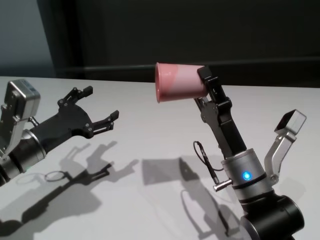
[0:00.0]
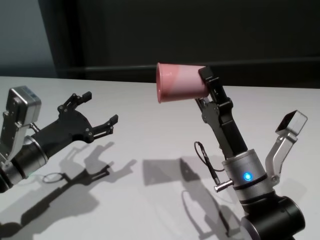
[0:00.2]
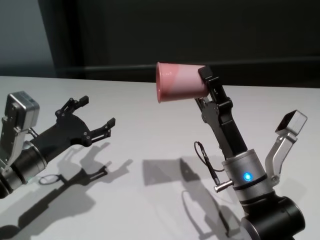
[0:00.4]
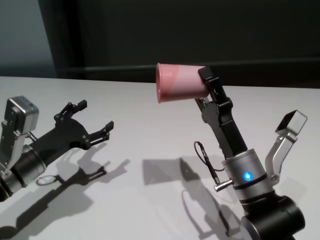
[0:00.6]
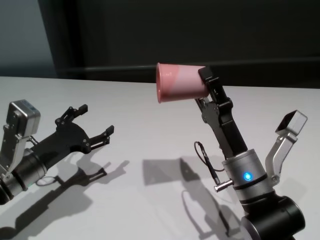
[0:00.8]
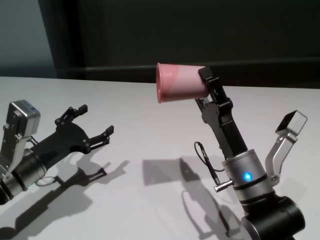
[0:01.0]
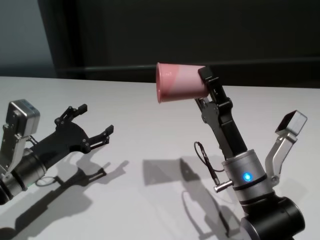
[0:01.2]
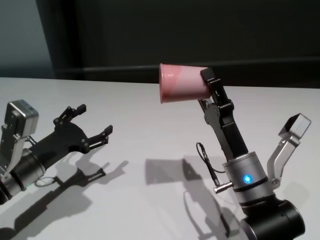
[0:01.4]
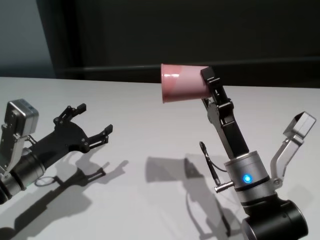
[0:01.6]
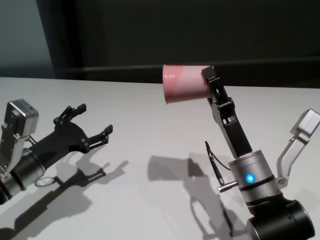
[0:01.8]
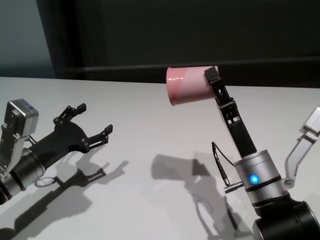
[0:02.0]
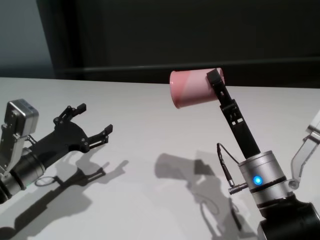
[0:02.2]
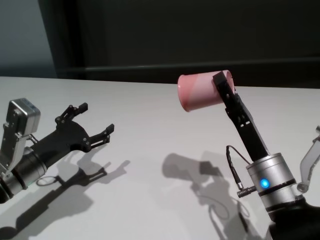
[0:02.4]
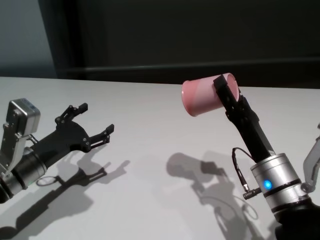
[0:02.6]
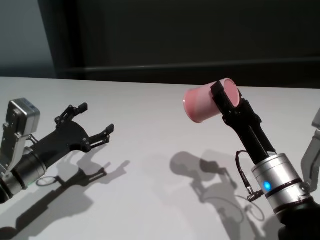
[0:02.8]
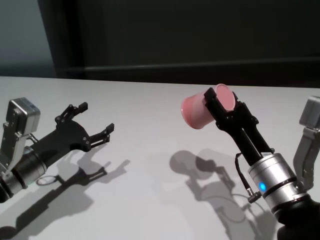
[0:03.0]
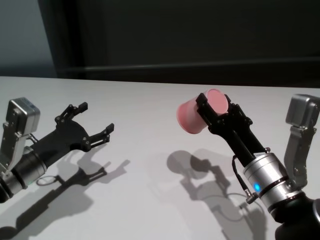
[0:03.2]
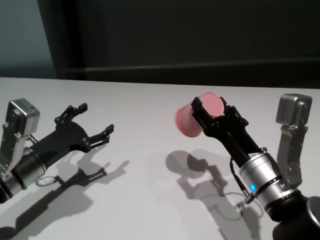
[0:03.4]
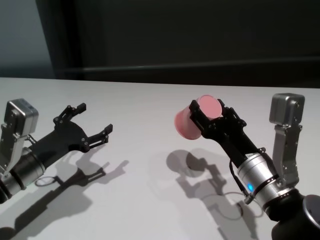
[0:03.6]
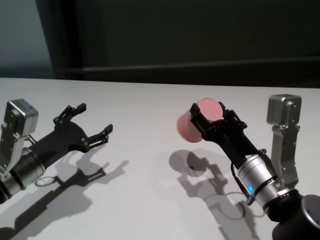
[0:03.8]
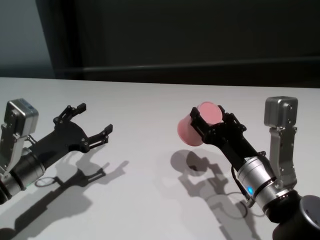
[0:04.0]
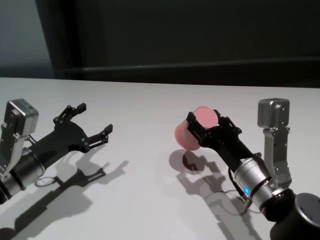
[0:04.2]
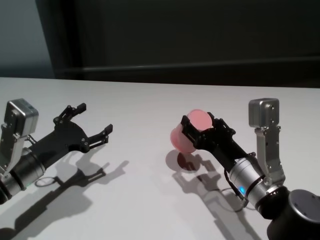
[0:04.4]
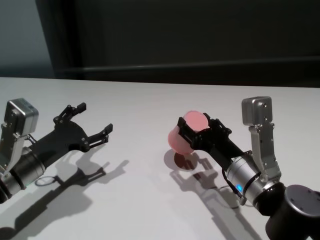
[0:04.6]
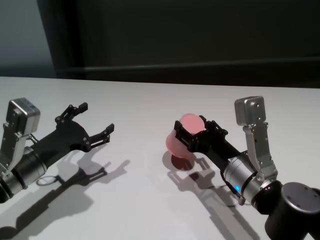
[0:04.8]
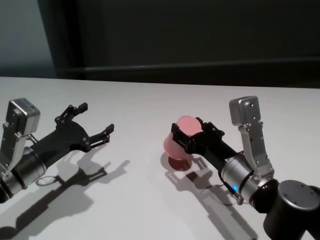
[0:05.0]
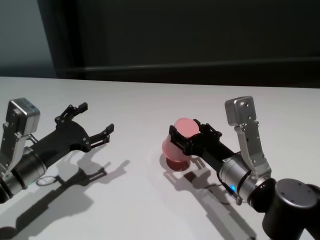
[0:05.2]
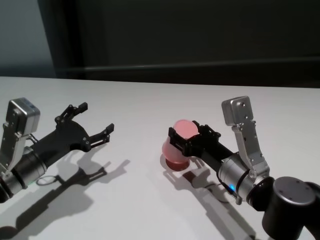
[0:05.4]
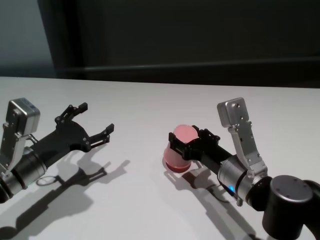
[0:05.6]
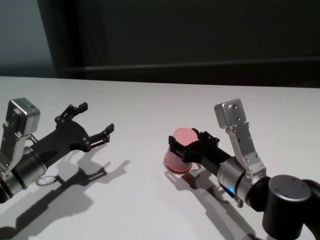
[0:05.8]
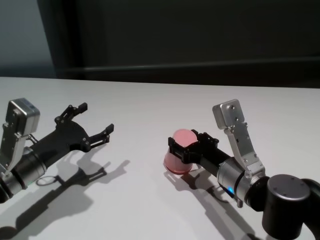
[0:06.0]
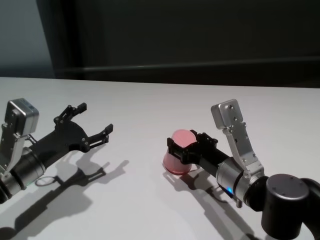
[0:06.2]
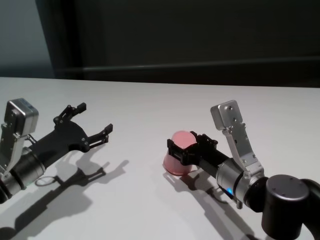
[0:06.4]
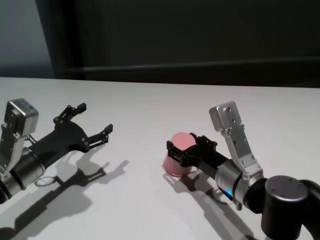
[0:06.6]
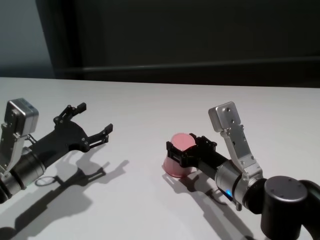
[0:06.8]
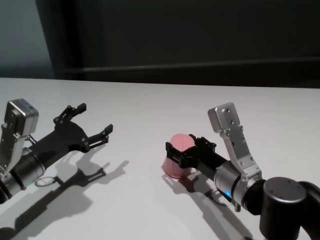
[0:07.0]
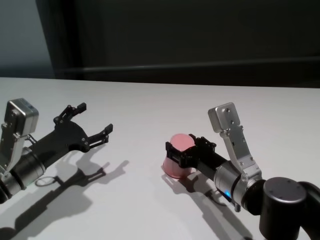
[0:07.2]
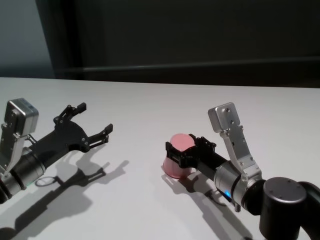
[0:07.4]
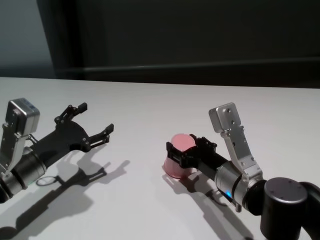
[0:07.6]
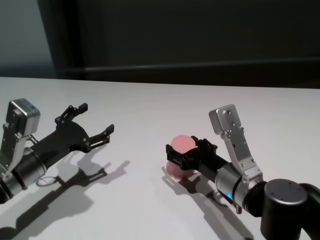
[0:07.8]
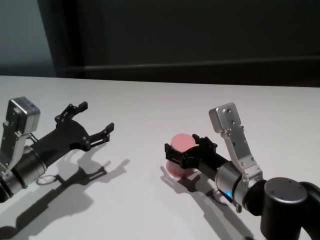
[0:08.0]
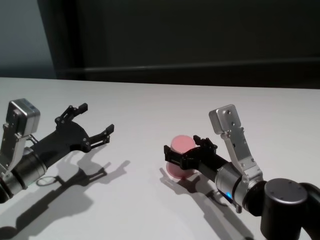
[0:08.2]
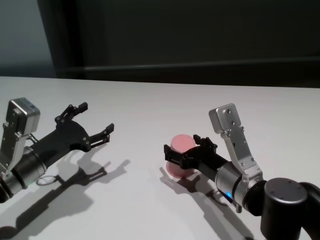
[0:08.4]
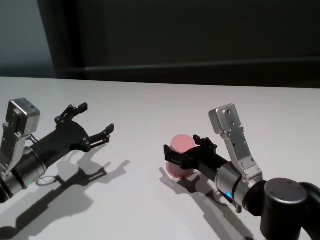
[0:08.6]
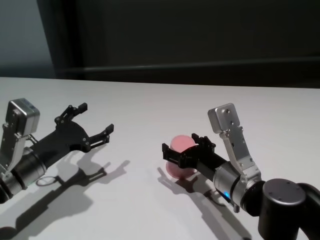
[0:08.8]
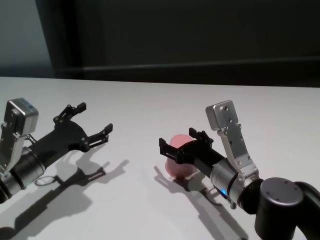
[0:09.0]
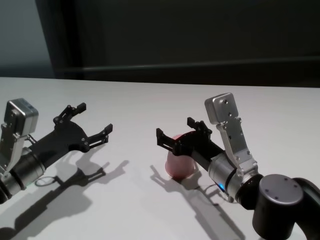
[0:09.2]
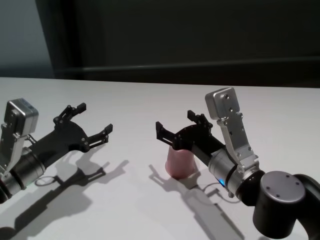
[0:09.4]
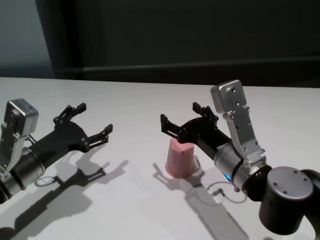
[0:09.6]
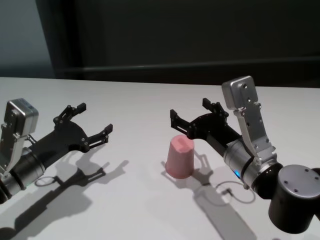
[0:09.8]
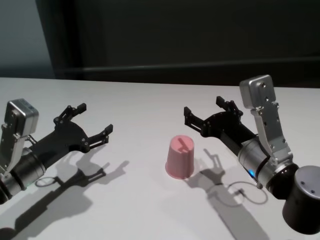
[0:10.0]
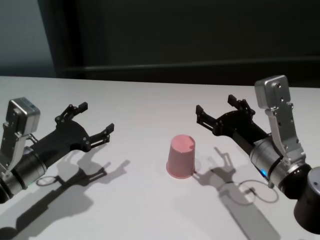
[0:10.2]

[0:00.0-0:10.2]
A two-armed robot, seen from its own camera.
Task of the whole recording: On the white table pick up the cup with one hand and transfer it to the other hand before turning it over.
Step, 0:00.0 to 0:08.8: Place the cup on the table with right gripper.

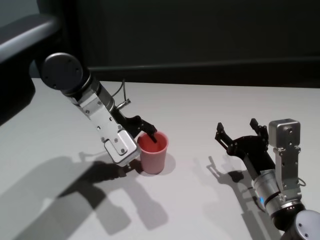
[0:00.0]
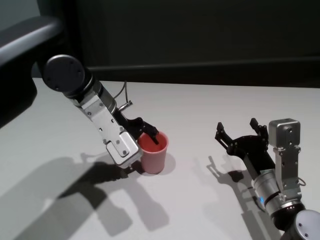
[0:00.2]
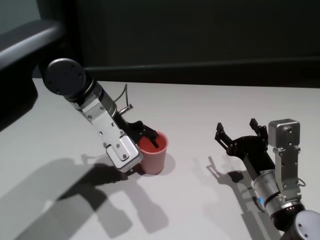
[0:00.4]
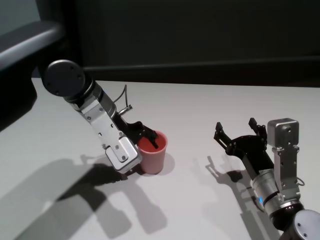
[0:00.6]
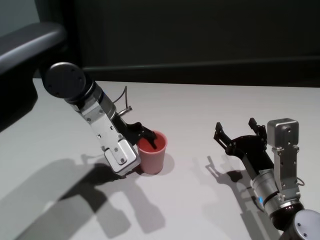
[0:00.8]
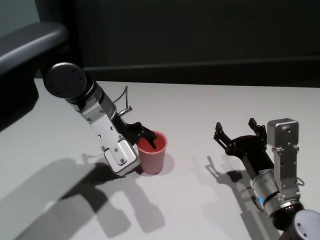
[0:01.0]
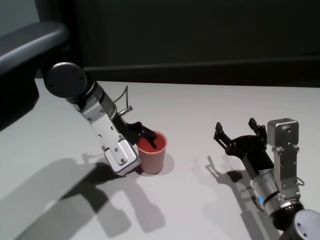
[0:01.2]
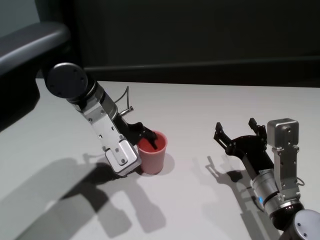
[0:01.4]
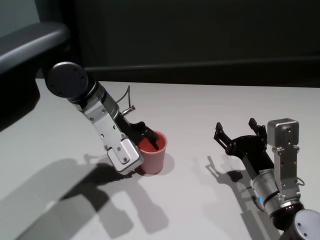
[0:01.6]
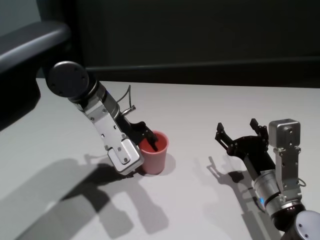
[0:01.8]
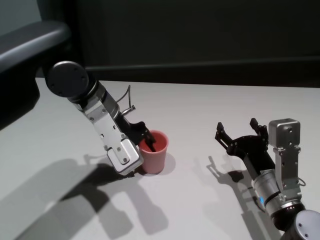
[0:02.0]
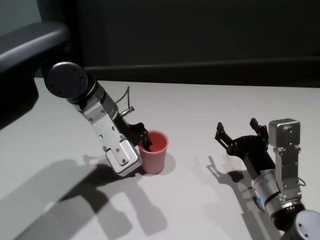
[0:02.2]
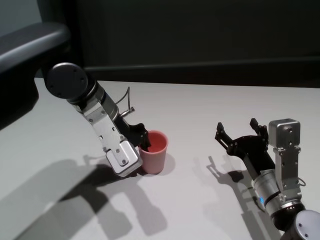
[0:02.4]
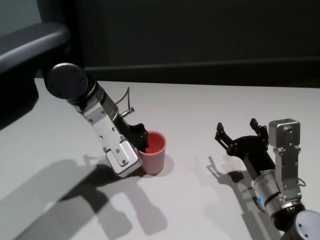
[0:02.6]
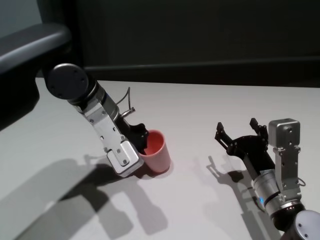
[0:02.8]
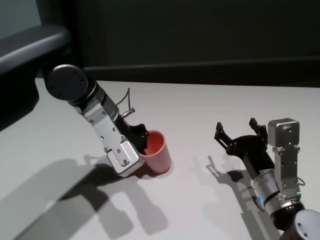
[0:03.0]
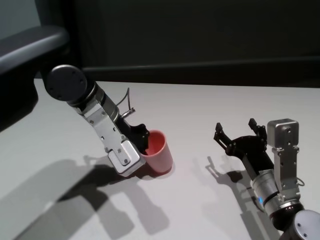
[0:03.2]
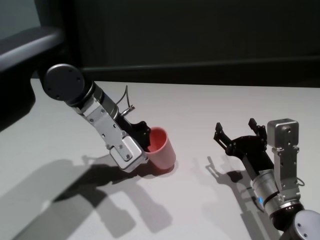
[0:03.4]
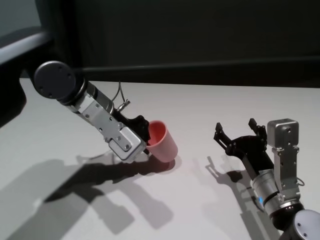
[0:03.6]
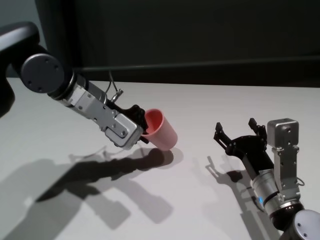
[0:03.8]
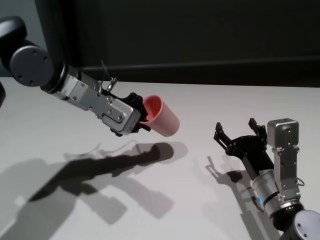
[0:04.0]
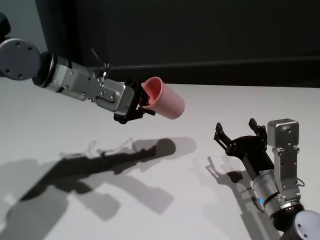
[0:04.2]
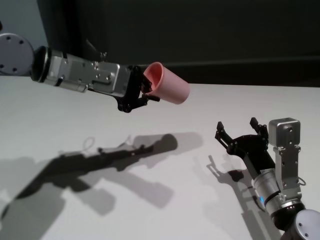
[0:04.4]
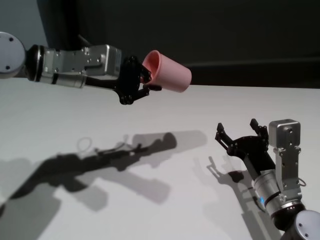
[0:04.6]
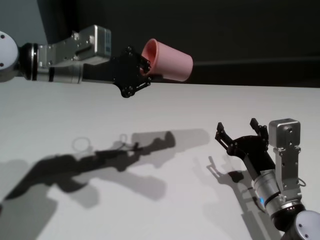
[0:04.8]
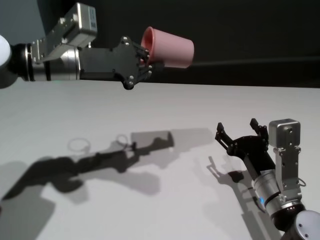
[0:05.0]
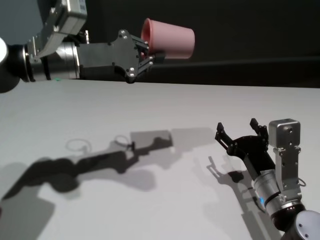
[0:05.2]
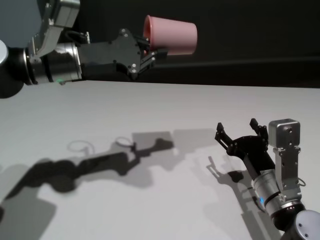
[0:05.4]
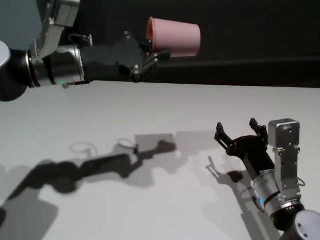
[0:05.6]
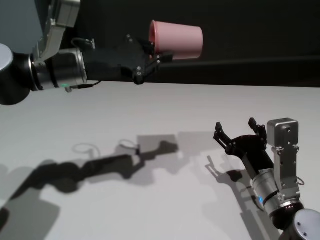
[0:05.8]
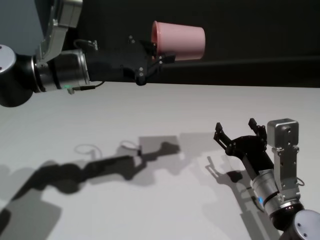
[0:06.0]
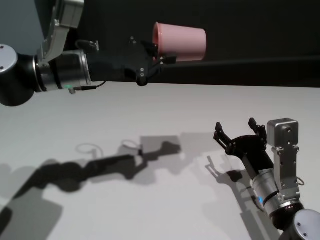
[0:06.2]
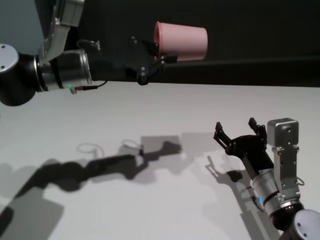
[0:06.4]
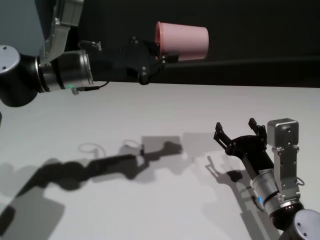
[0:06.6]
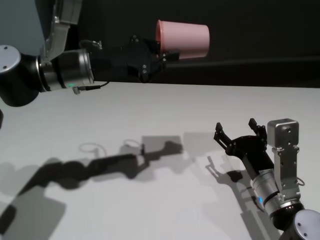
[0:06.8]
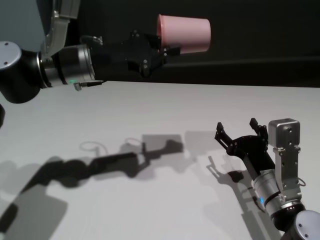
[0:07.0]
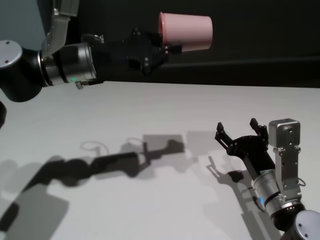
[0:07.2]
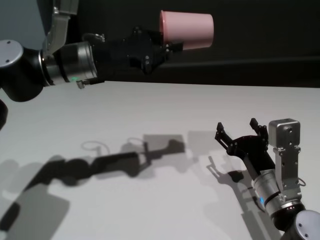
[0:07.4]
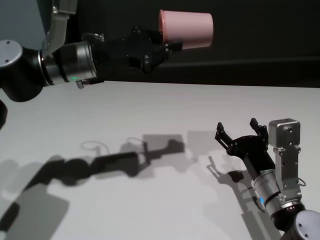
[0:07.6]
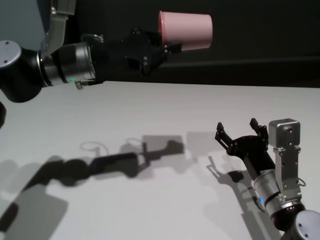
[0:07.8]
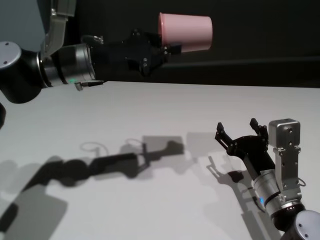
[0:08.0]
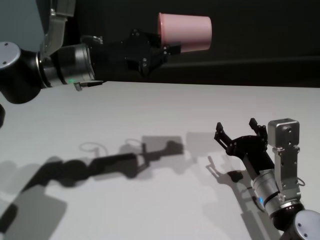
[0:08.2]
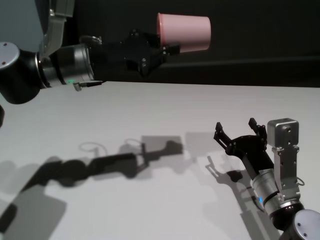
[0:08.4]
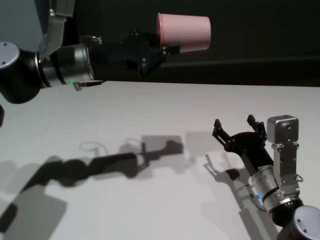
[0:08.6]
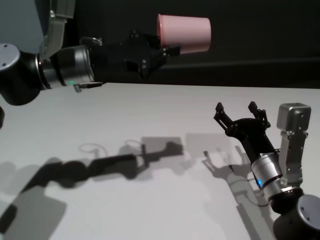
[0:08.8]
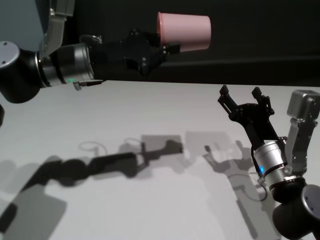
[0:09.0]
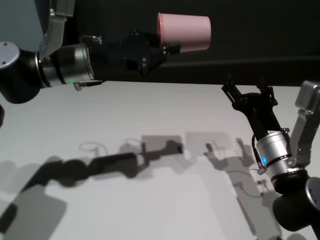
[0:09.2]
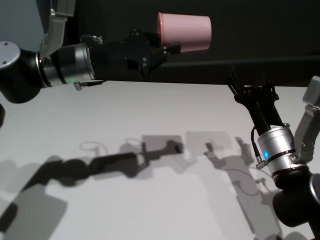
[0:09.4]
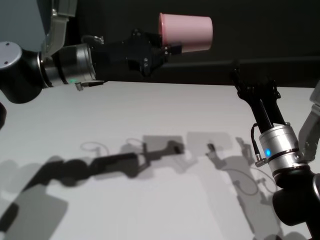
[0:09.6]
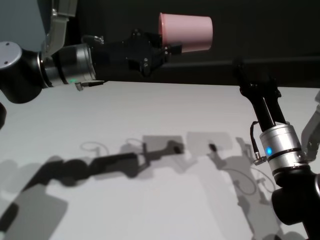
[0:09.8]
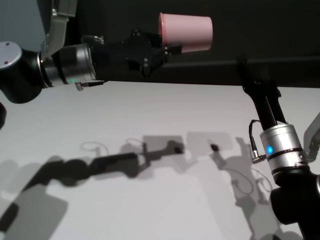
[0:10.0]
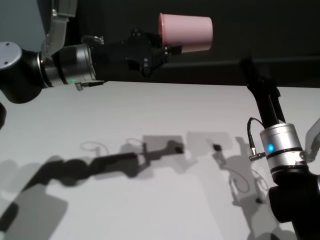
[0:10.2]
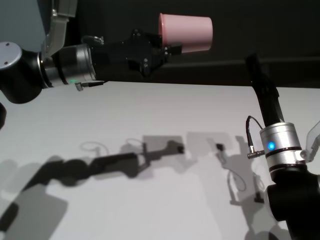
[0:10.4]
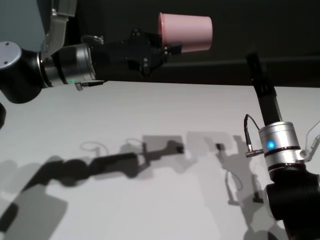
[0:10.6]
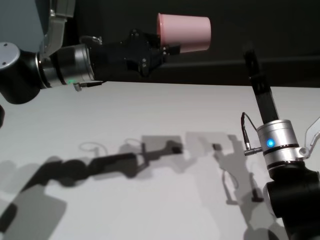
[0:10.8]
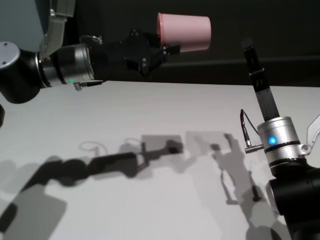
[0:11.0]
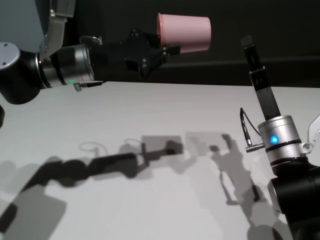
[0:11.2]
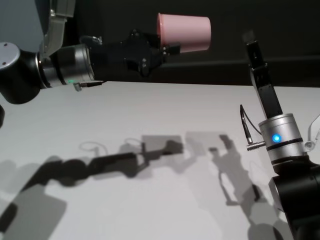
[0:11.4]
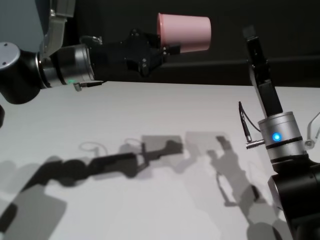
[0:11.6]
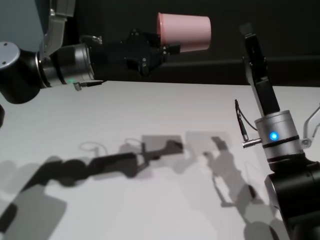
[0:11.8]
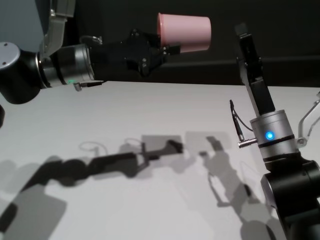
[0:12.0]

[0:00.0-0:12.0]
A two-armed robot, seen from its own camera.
Task of the whole recording: On the white table pick up the cup with one hand and transfer it to the other hand before turning it over.
Step, 0:00.0 to 0:02.8: Grasp the cup with left gripper.
